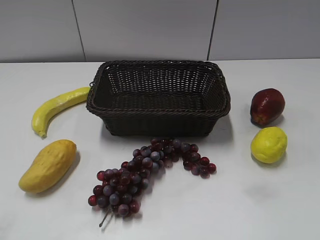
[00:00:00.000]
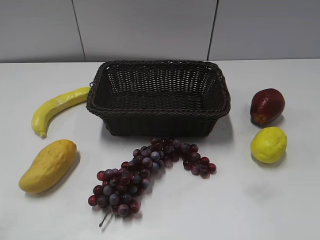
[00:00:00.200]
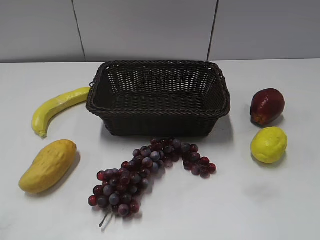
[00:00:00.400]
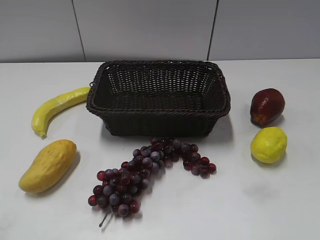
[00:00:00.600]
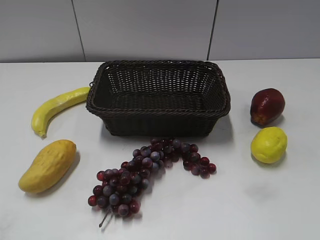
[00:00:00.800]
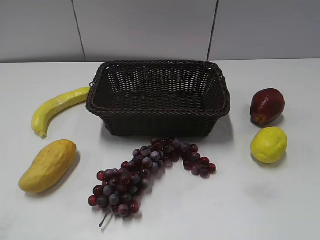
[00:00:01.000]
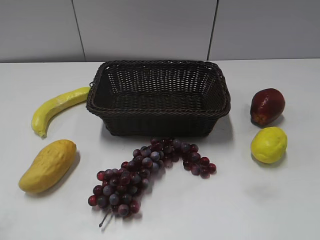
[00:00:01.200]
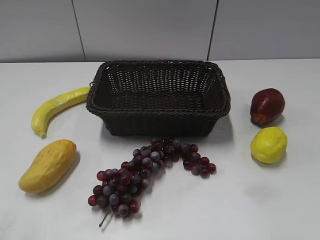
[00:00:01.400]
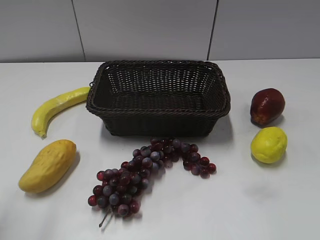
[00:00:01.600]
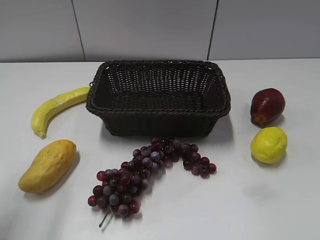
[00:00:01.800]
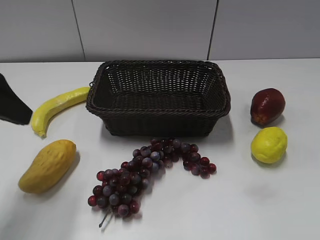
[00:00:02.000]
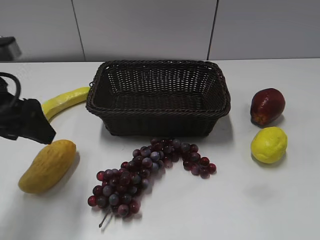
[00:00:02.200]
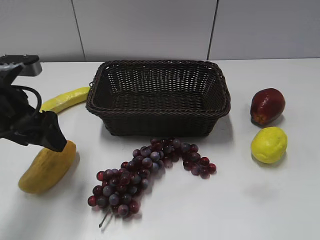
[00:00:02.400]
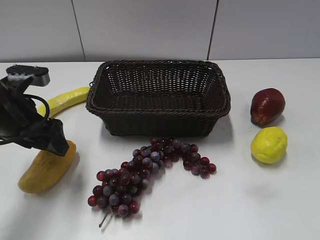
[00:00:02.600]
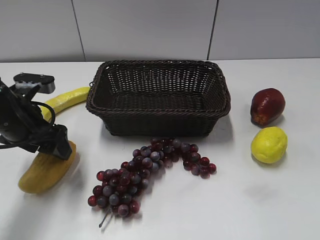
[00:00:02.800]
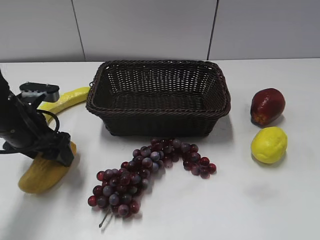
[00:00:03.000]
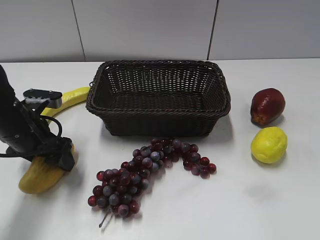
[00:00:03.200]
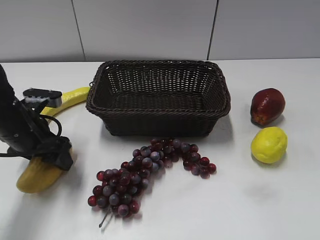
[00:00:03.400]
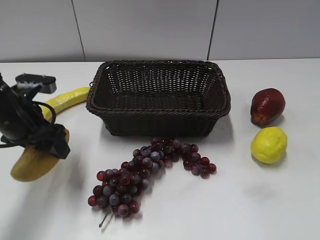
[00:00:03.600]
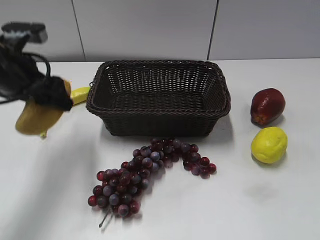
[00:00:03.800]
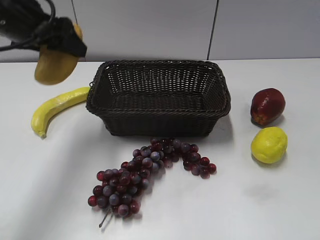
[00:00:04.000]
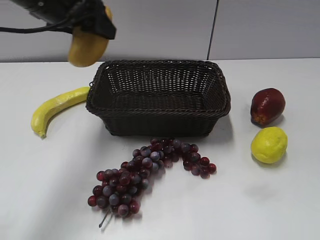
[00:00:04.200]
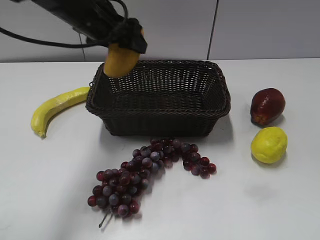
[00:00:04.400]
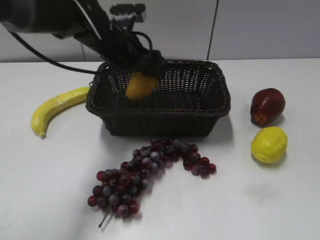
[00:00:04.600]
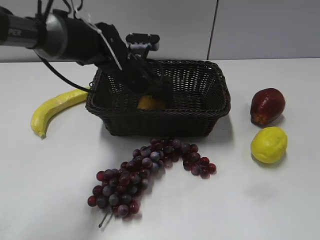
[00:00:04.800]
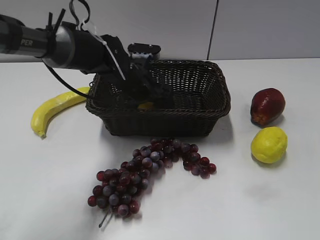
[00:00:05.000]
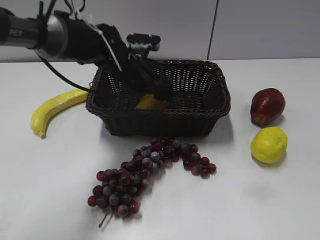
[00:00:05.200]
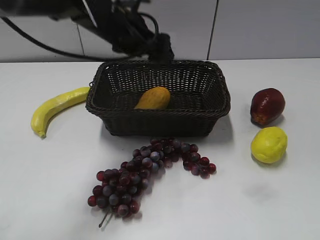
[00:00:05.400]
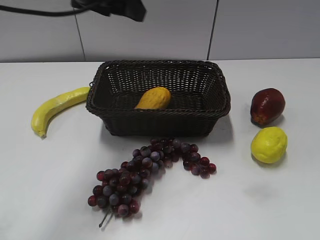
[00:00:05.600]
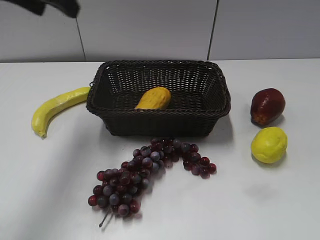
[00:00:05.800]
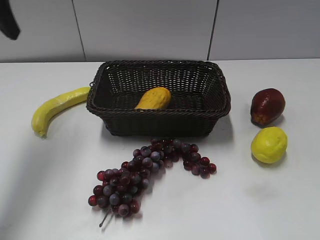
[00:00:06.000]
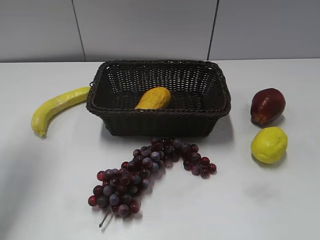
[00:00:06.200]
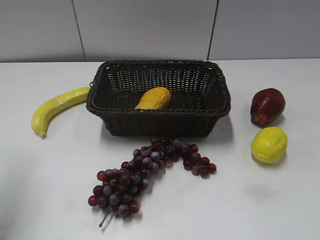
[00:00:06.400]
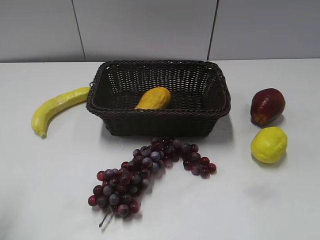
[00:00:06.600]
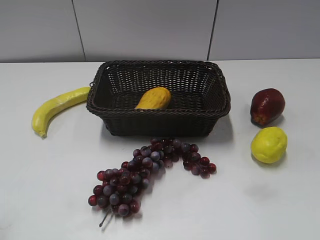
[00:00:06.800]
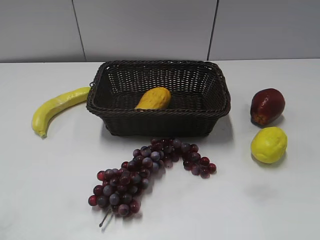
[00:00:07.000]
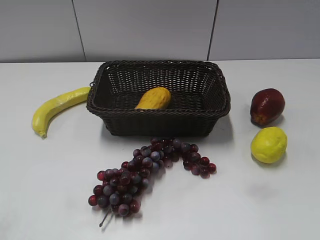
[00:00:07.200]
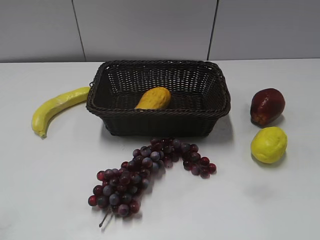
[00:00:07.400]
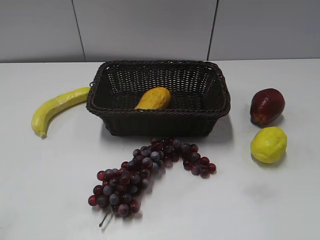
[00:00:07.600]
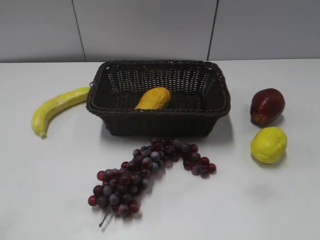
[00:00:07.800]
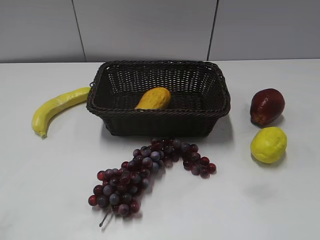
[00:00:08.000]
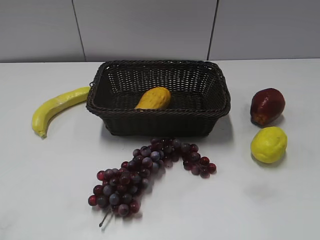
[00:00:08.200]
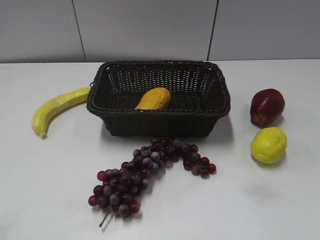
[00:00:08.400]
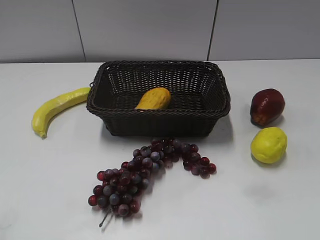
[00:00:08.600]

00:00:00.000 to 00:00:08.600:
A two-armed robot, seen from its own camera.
Step, 00:00:02.000 to 00:00:03.200: Grasp the mango with left gripper.
Step, 00:00:03.400 to 00:00:05.200: Place the mango in the basket with left gripper.
00:00:01.400 to 00:00:02.800: The left gripper heads forward and downward, covering about 30 cm.
00:00:02.800 to 00:00:04.400: The left gripper heads to the right, forward and upward, covering about 20 cm, and closes up.
00:00:04.400 to 00:00:05.800: The left gripper goes approximately 15 cm upward, to the left and backward, and opens up.
00:00:05.800 to 00:00:07.200: The left gripper moves backward, roughly 35 cm, and closes up.
00:00:07.200 to 00:00:08.600: Neither gripper changes place.
